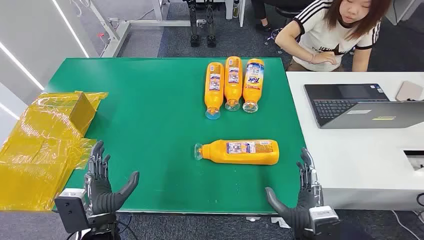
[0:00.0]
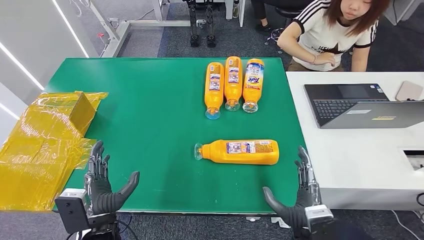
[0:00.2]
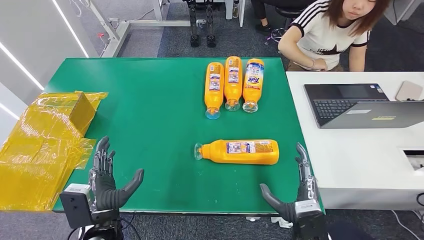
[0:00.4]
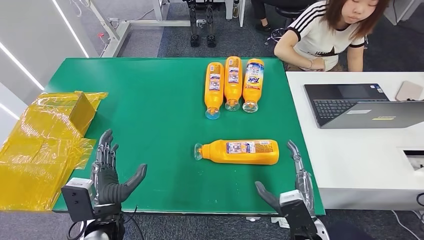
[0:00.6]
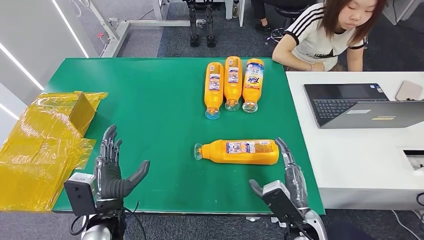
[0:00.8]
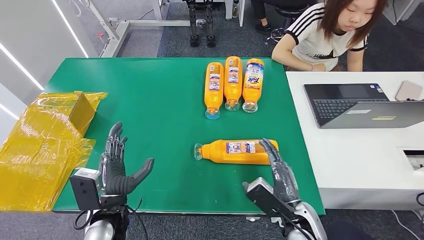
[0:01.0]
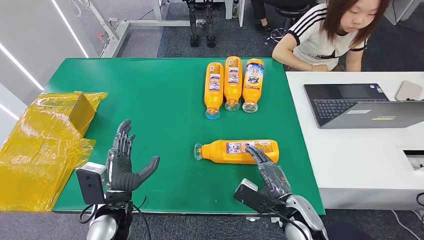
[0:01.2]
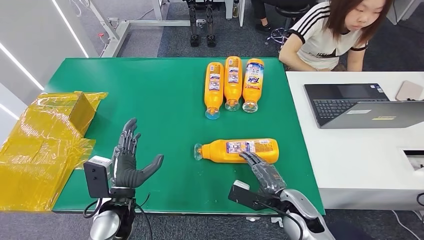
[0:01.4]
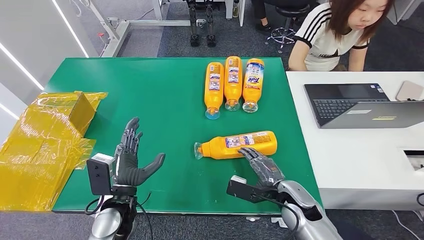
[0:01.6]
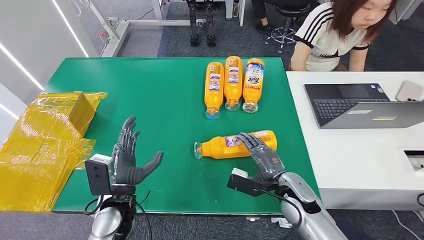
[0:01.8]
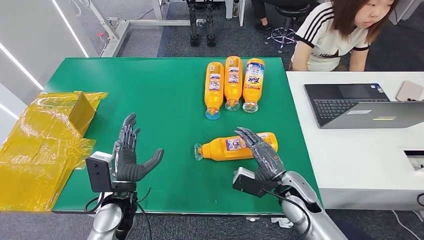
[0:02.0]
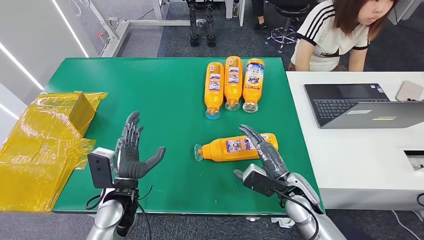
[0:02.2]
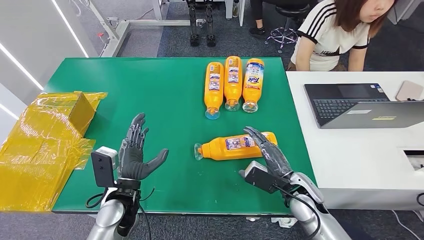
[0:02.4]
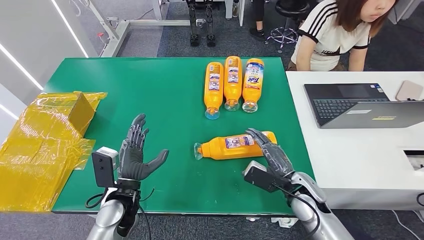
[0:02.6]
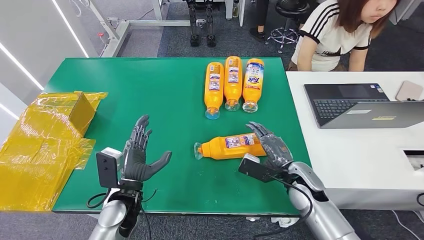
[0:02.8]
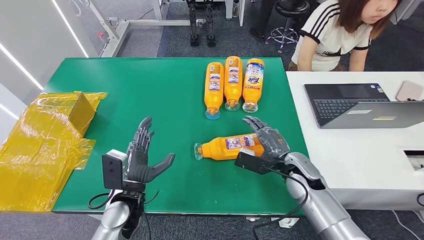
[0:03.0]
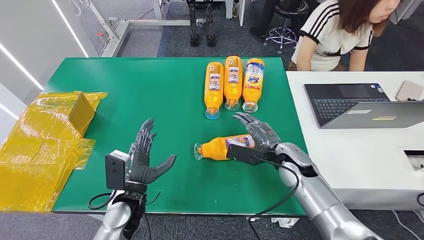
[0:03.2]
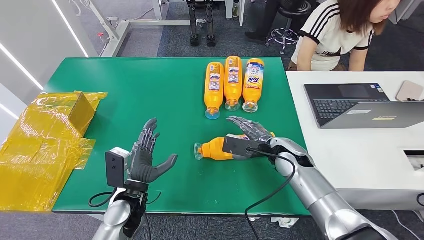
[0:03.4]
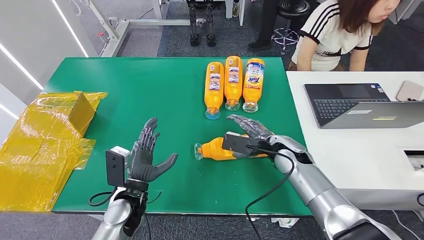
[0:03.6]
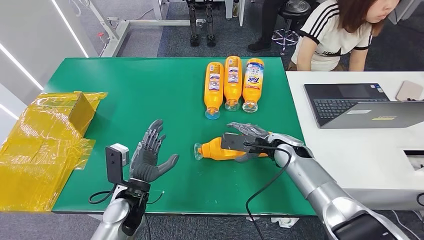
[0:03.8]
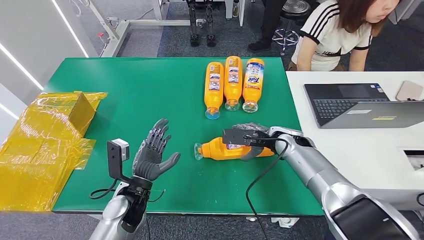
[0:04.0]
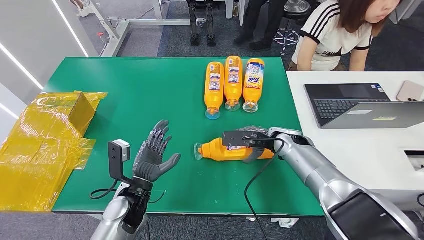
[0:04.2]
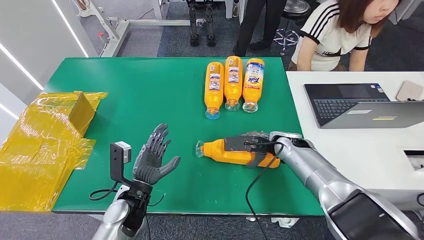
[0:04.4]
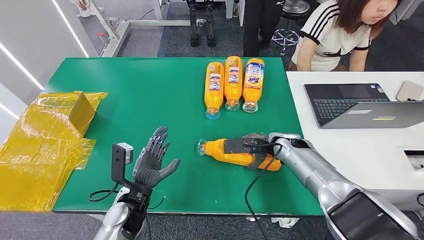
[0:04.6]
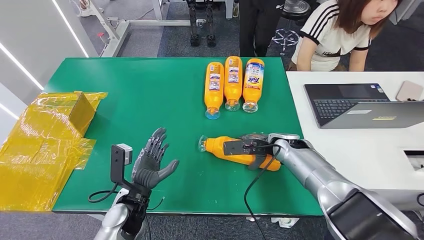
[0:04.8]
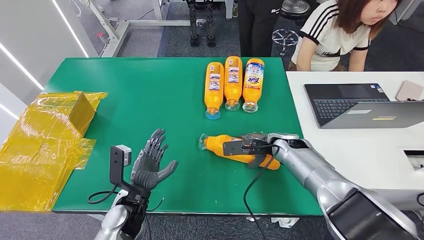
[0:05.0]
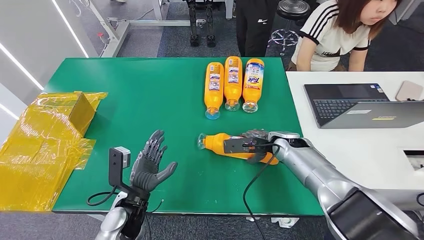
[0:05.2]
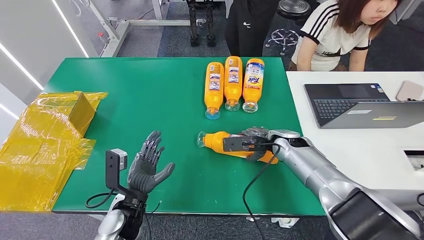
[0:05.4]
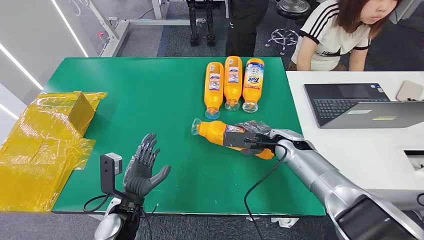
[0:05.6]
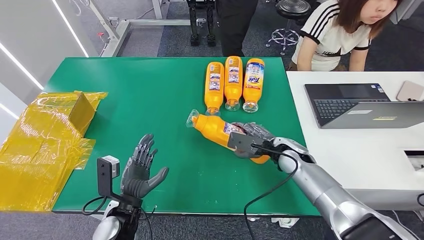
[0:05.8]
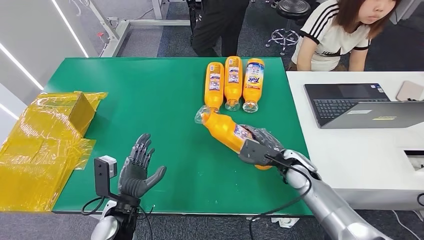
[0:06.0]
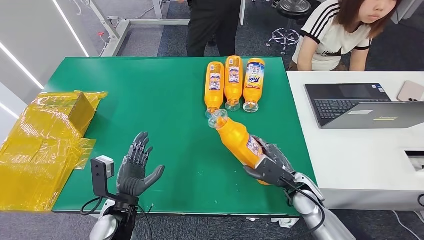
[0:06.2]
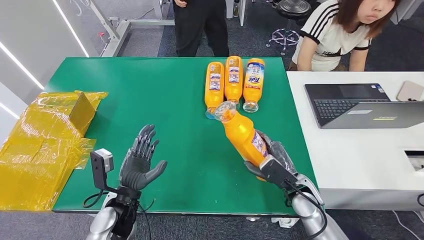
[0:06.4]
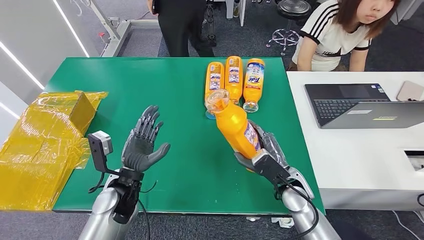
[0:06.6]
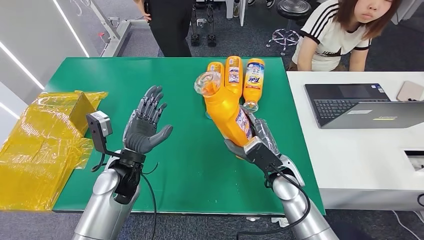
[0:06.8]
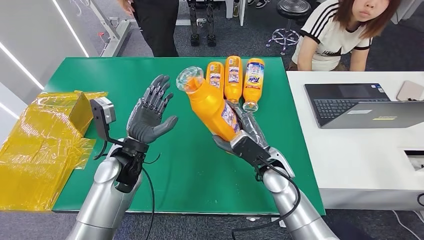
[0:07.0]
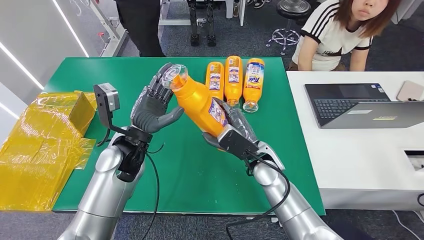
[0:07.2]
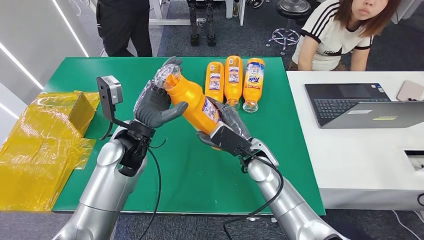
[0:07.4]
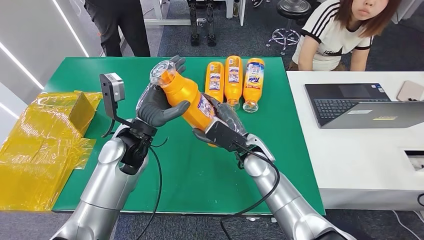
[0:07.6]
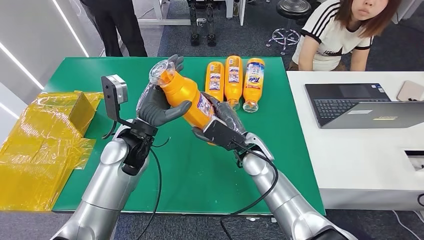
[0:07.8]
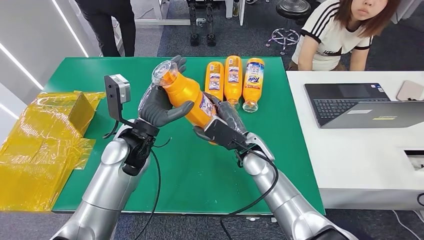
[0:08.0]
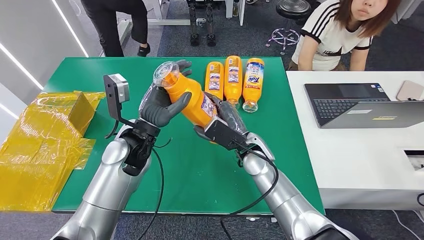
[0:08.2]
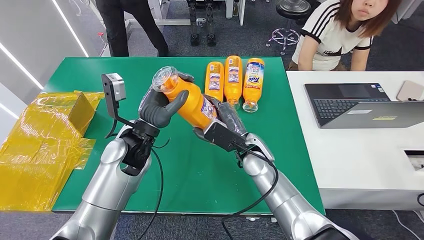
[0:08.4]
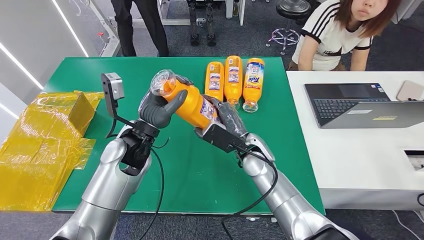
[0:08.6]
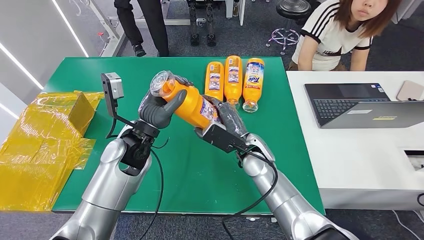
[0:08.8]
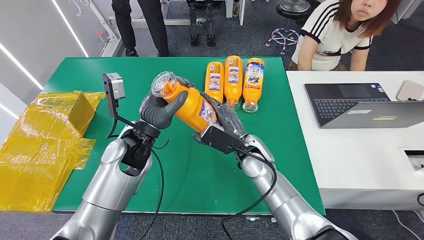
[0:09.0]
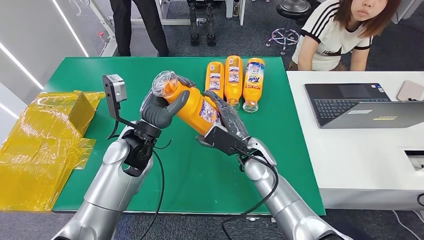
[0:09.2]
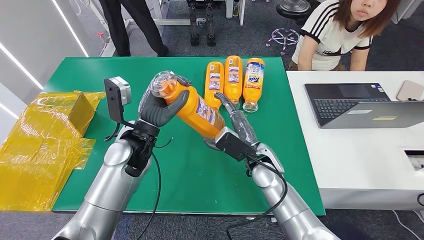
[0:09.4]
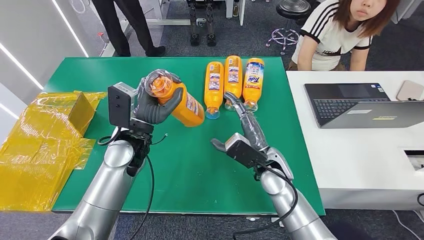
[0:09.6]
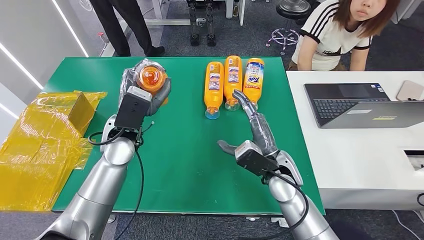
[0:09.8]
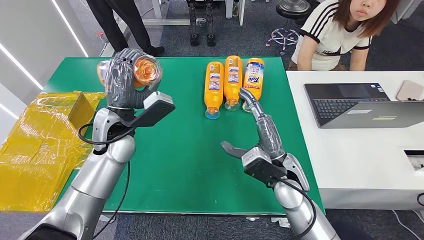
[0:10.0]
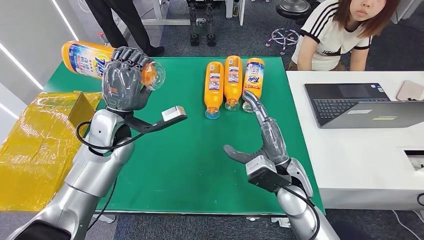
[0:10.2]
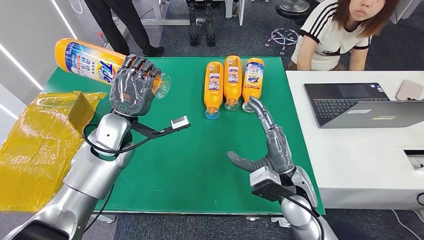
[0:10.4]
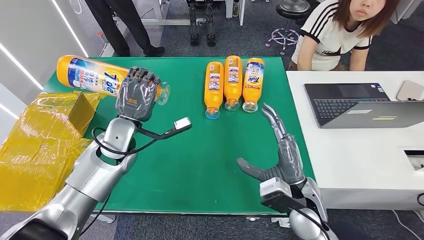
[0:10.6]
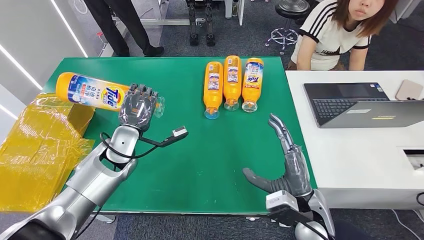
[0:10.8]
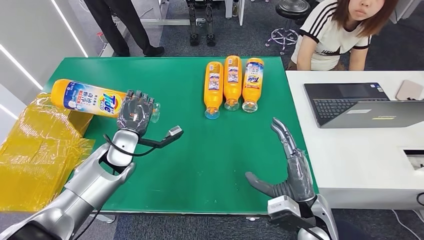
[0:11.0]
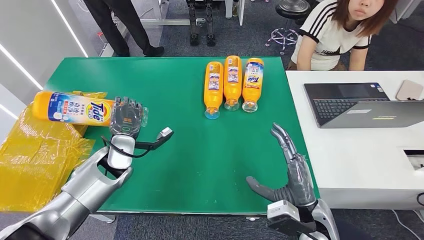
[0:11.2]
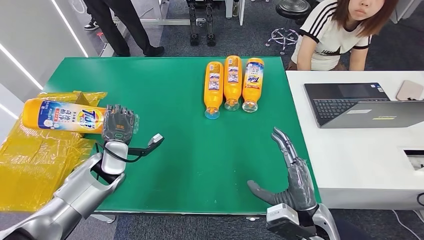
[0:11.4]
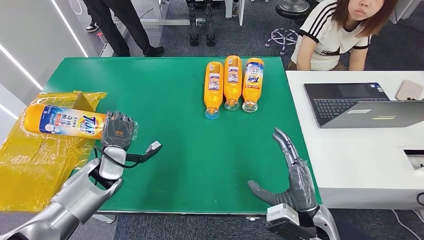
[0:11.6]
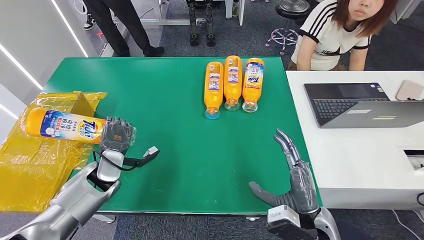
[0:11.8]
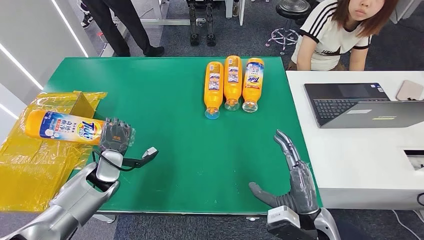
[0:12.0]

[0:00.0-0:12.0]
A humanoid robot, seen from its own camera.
Step, 0:00.0 to 0:06.4: Pick up the bottle from the table.
0:01.6 to 0:03.0: The right hand travels forward by approximately 5 cm.
0:03.0 to 0:04.4: The right hand shifts about 10 cm forward.
0:04.4 to 0:06.0: The right hand travels backward by some 5 cm.
0:07.6 to 0:09.0: The hands move only a little.
0:10.4 to 0:12.0: The left hand shifts about 15 cm downward and to the left, while the right hand travels backward by some 10 cm.

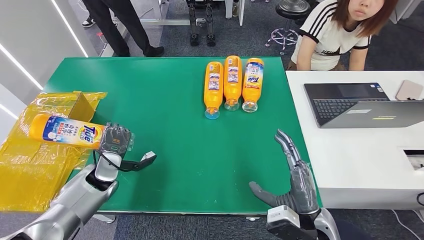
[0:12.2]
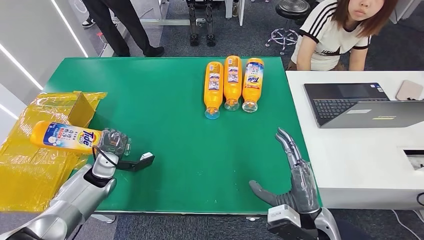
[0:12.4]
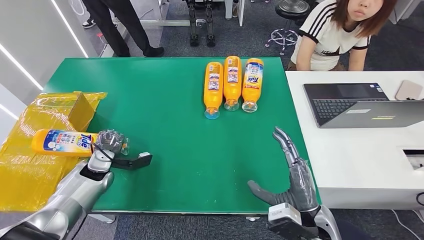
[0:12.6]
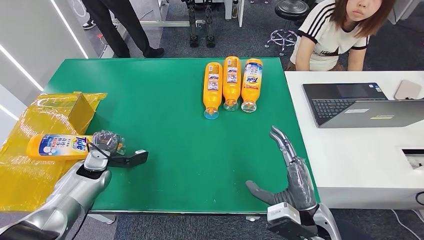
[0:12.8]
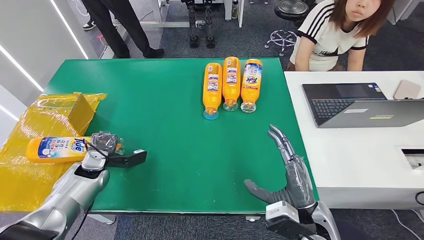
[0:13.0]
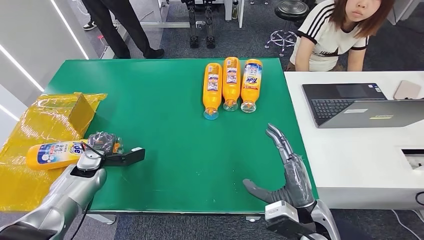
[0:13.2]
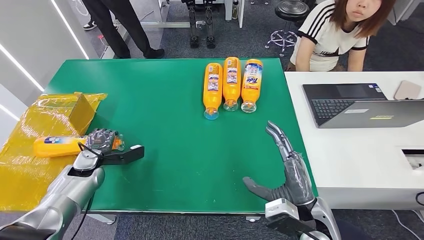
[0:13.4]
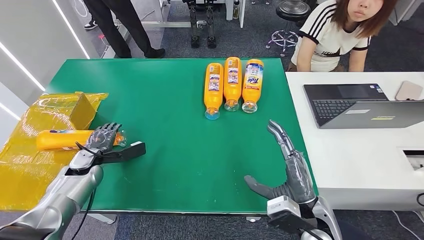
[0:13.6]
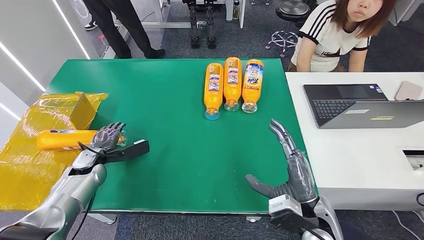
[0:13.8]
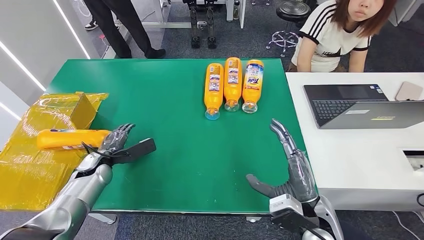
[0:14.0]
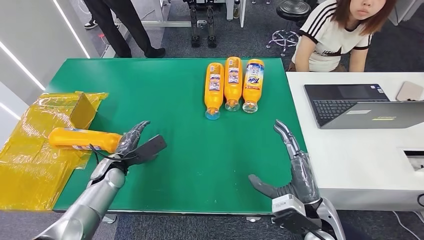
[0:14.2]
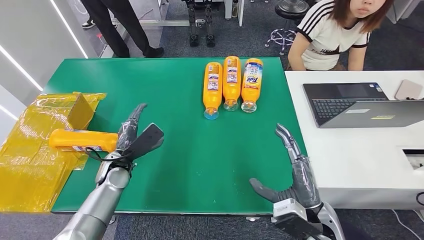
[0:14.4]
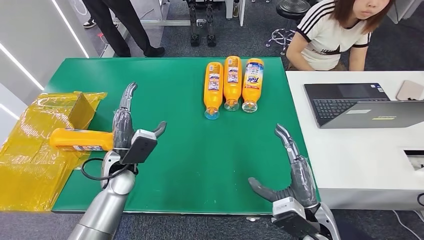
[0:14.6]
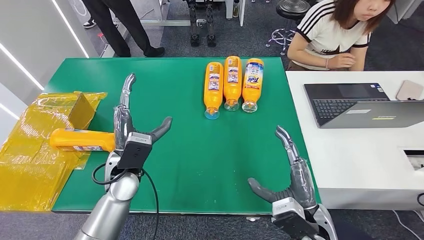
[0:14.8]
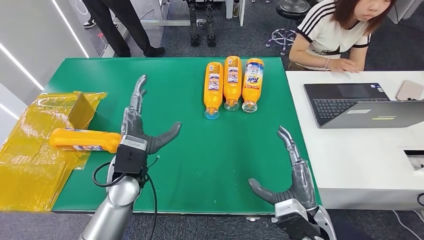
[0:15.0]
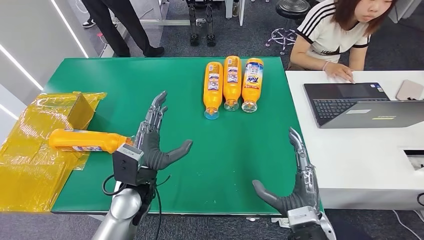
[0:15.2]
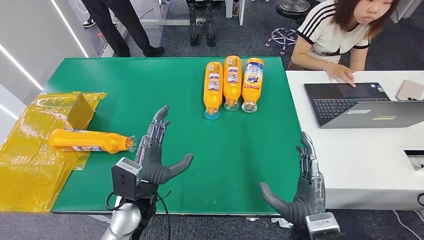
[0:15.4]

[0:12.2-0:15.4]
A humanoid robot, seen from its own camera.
Step, 0:12.2 to 0:15.4: Turn the bottle to the front side.
0:12.2 to 0:13.8: The left hand heads to the left, covering some 5 cm.
